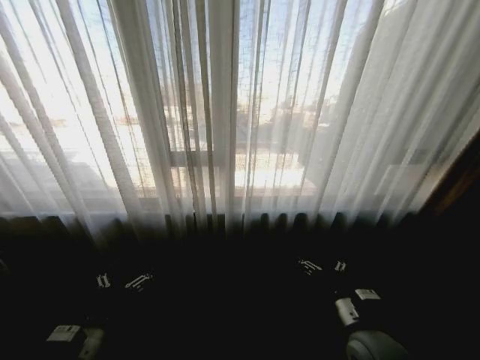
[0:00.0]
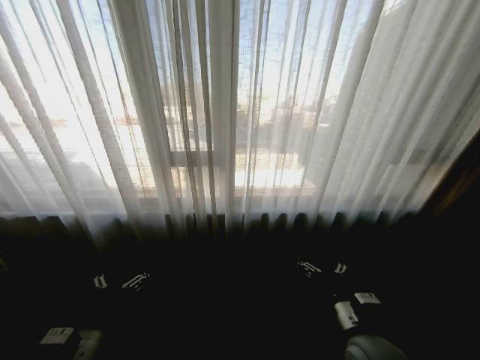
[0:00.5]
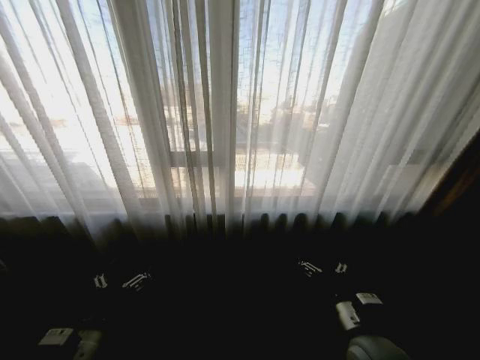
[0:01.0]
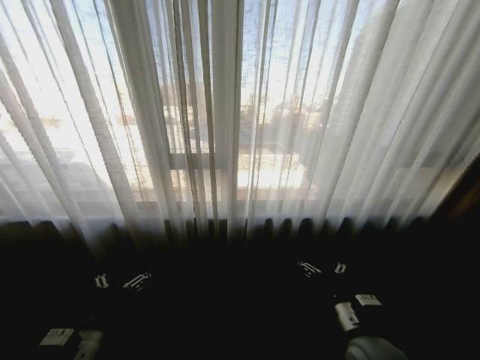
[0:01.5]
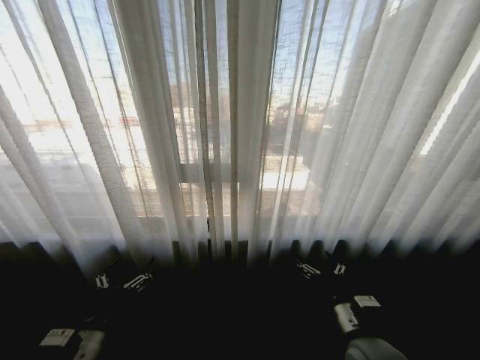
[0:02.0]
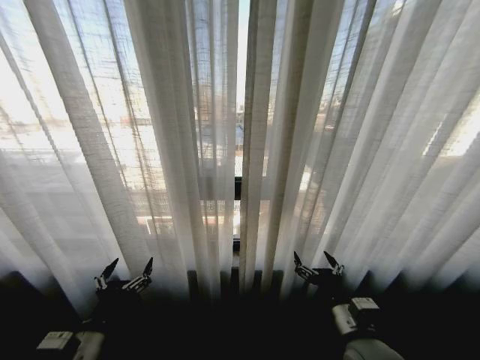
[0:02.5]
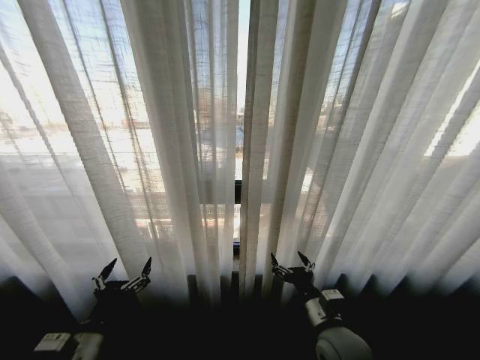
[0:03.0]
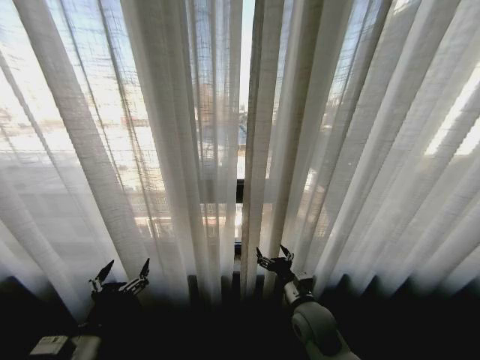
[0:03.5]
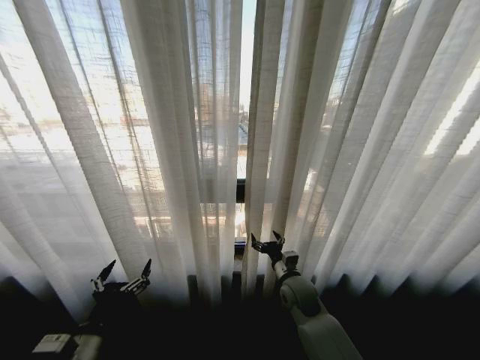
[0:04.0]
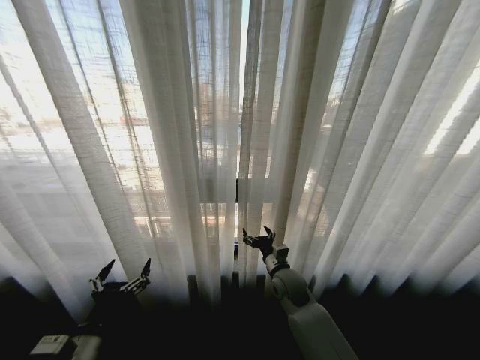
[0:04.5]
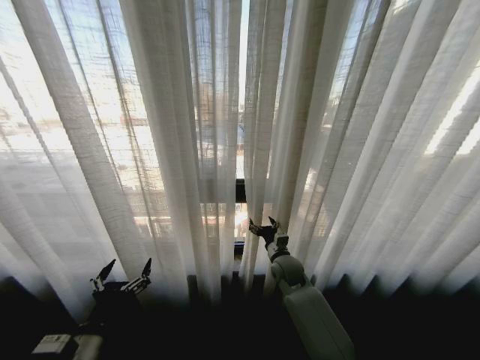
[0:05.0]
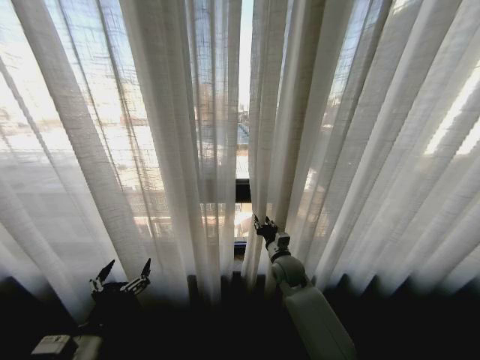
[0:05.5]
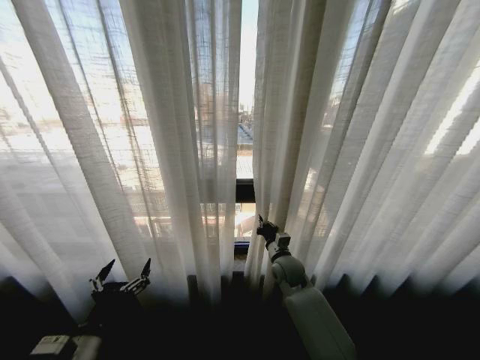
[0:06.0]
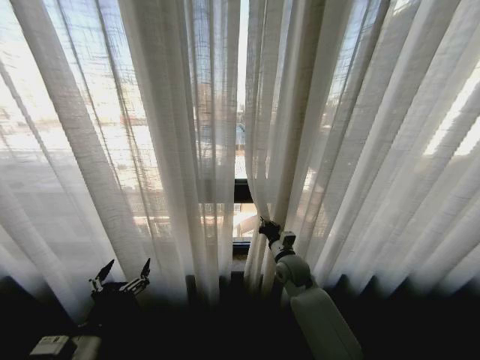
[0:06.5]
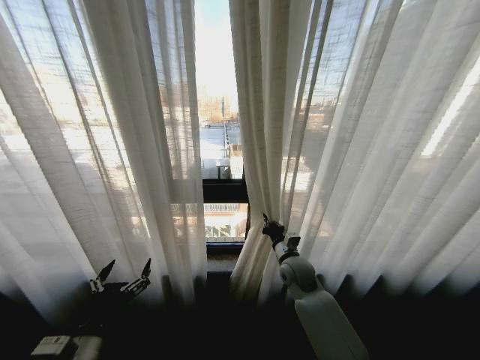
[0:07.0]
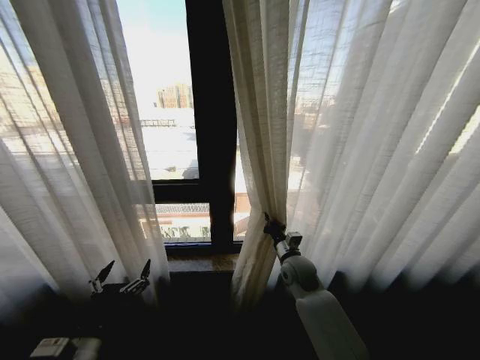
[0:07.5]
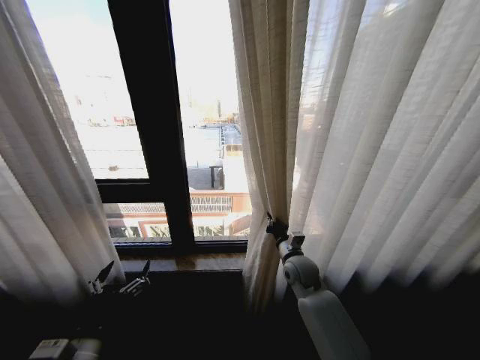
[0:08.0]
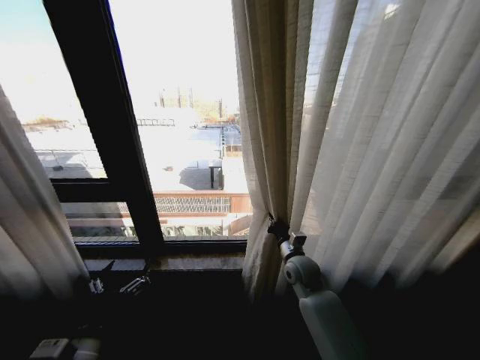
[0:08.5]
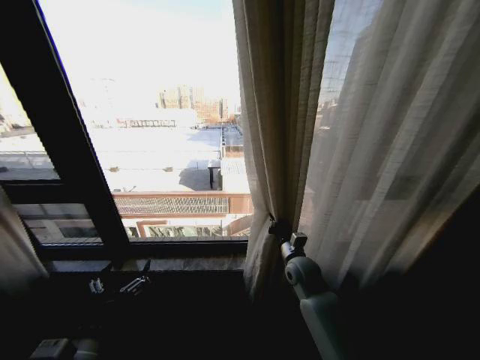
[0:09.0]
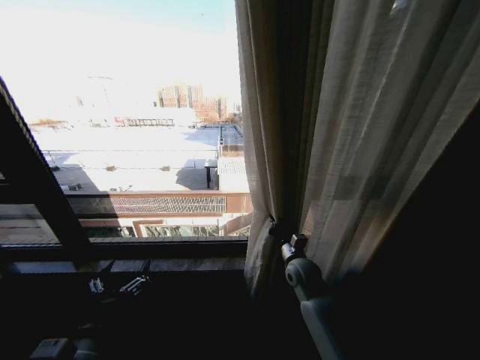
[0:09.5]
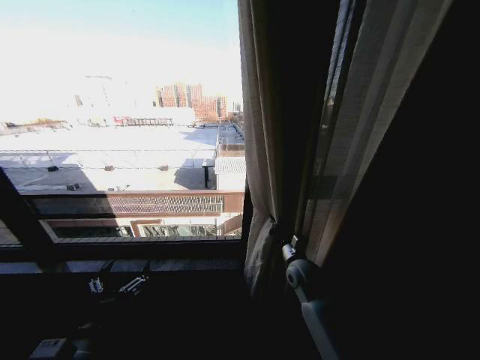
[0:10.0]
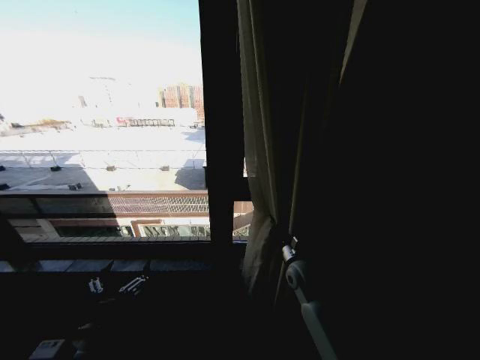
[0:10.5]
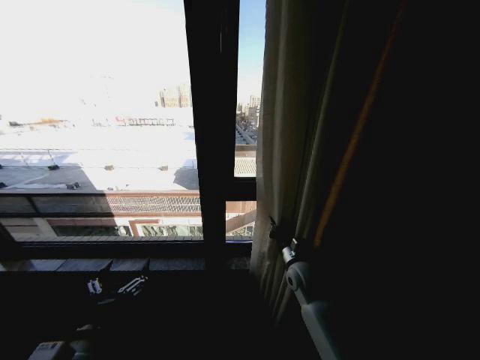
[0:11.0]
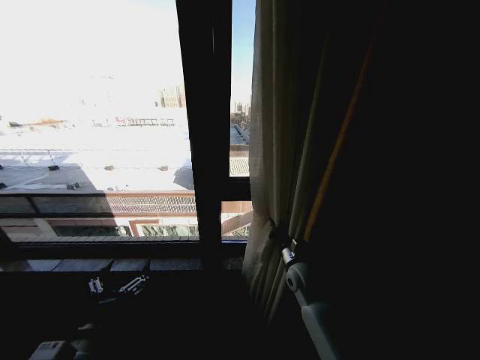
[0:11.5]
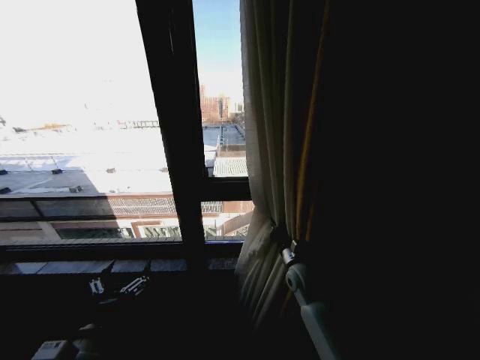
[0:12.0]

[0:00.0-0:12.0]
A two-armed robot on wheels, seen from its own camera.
Task of the whole recording: Open the curtains by pulling them apart, changing their state from closed to fully open.
0:02.0 to 0:04.0: The right gripper goes some 20 cm forward and to the left.
0:04.0 to 0:06.0: The right gripper heads forward, covering some 5 cm, and closes its fingers.

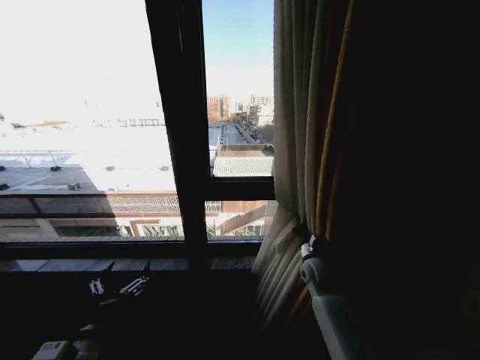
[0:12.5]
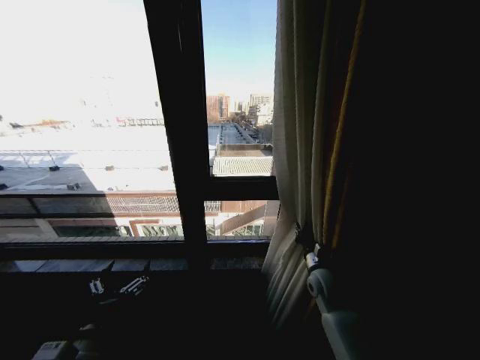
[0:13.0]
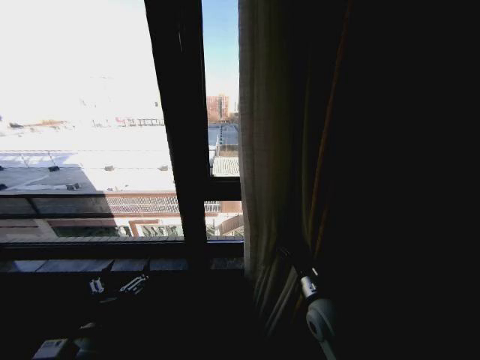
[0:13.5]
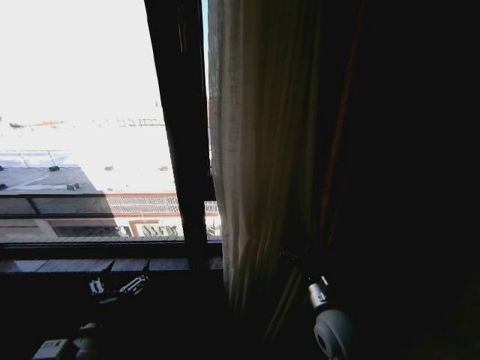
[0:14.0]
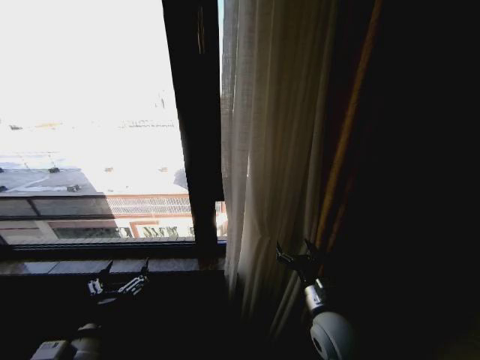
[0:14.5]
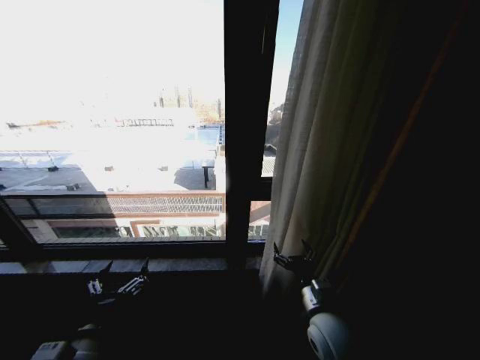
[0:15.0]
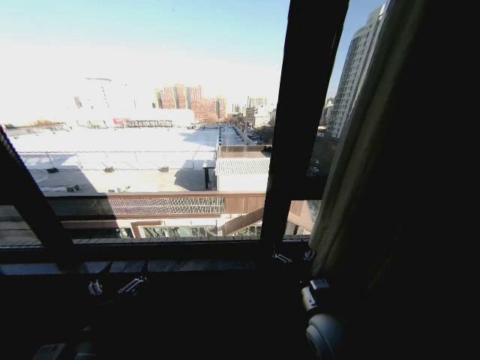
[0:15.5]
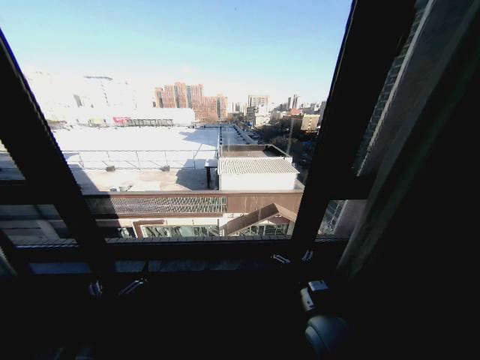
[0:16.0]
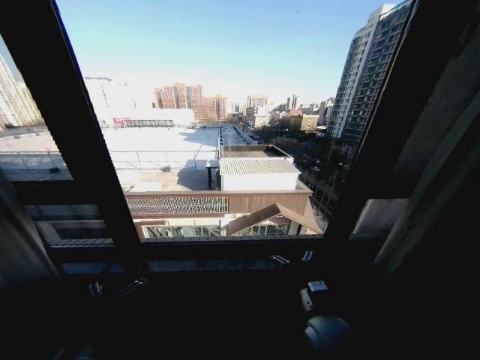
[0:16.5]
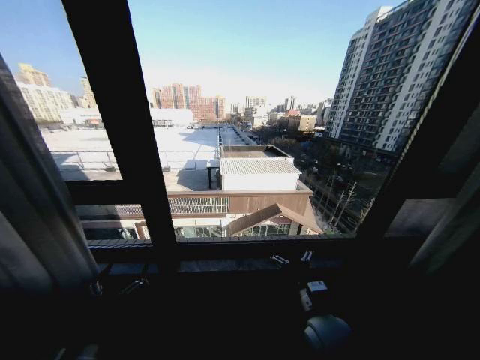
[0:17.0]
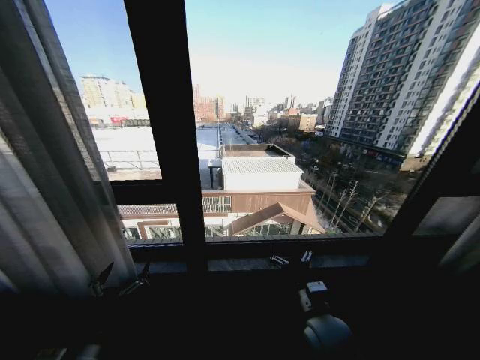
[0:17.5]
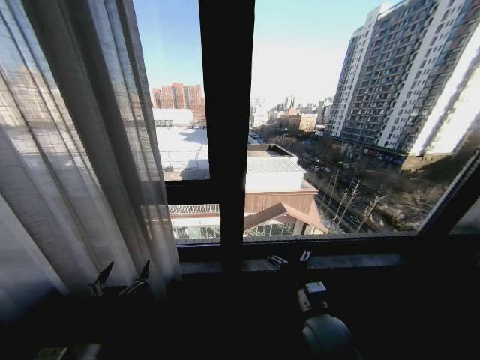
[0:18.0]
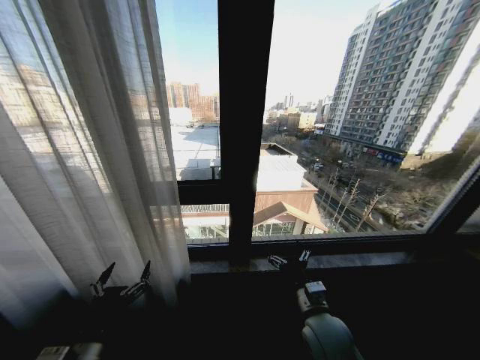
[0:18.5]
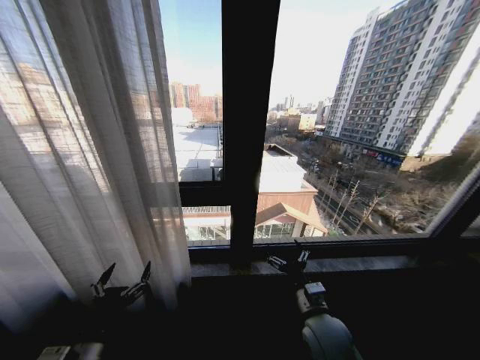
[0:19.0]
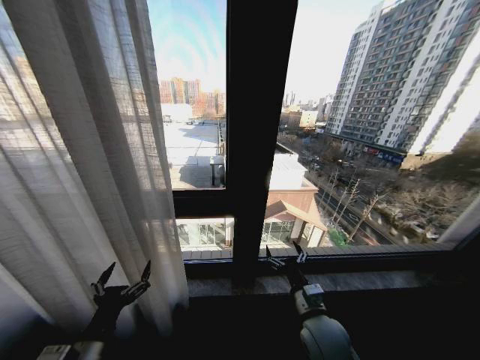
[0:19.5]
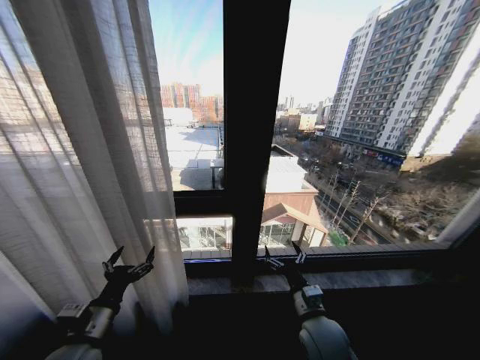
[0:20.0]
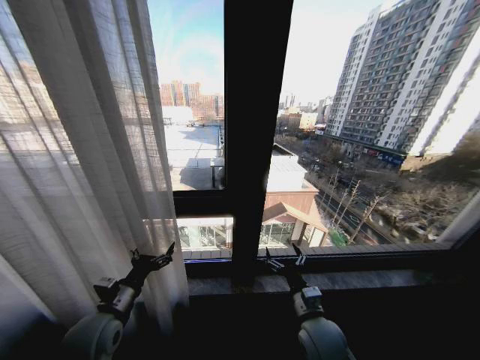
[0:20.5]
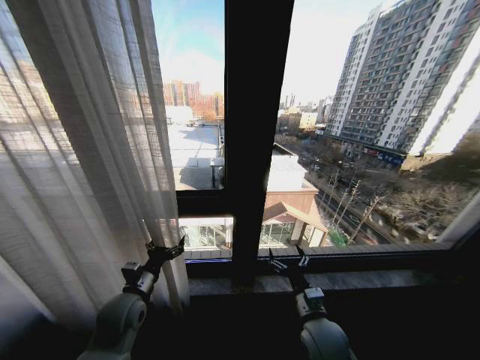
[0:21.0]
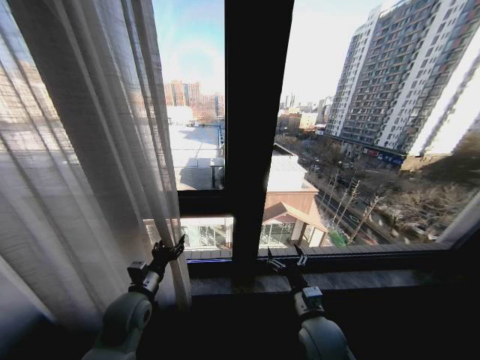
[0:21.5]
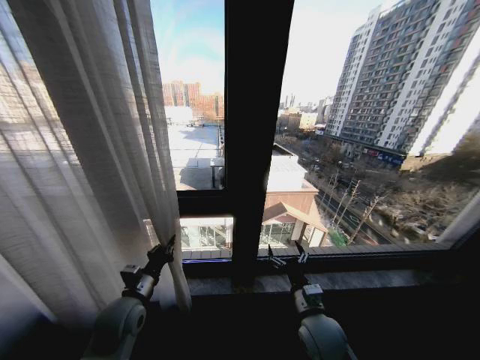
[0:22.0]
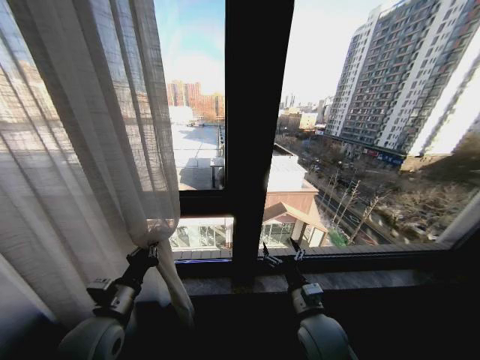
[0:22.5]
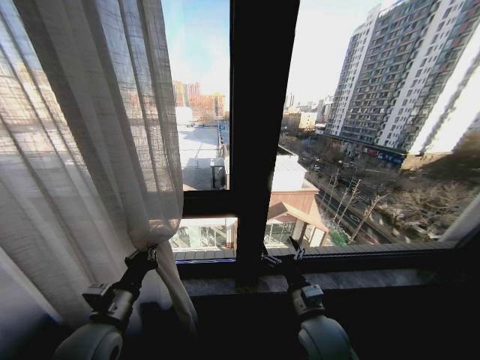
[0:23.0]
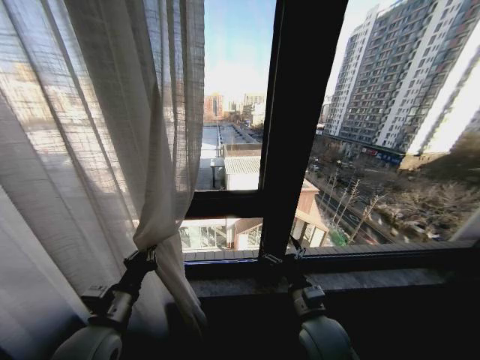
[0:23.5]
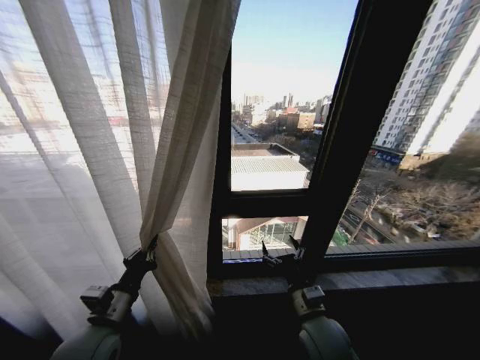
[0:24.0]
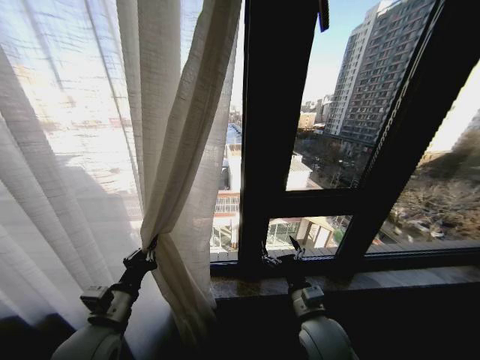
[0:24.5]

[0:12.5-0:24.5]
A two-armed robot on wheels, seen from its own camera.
Task of the whole recording: Open the curtains by pulling them apart, changing their state from closed to fully open.
0:12.5 to 0:14.5: The right gripper heads backward, covering roughly 15 cm, and opens.
0:18.5 to 0:20.5: The left gripper is displaced forward by some 10 cm.
0:20.5 to 0:22.5: The left gripper closes up.

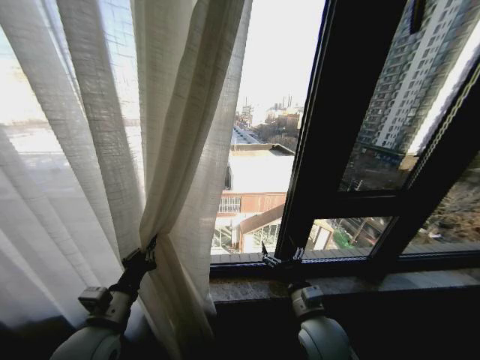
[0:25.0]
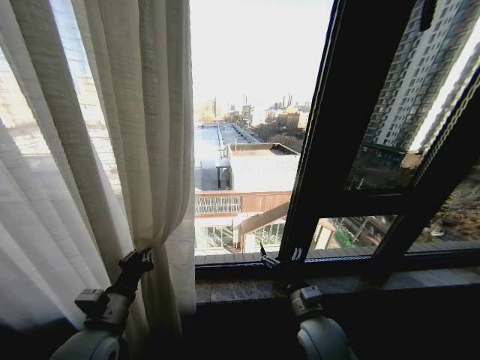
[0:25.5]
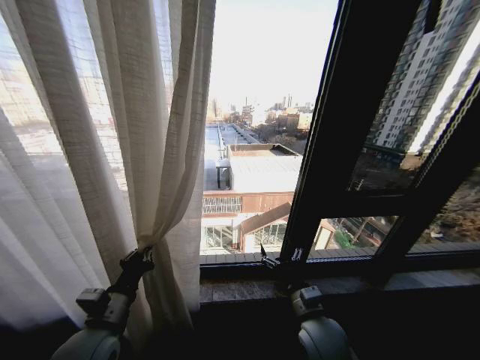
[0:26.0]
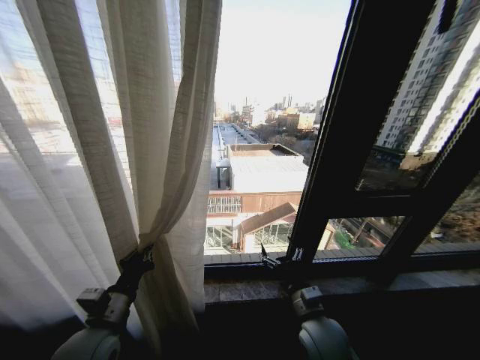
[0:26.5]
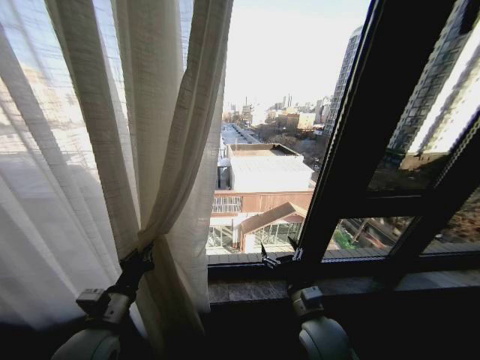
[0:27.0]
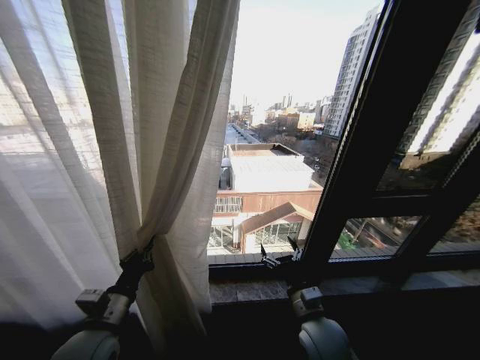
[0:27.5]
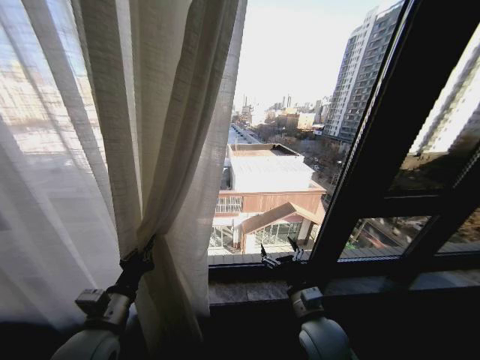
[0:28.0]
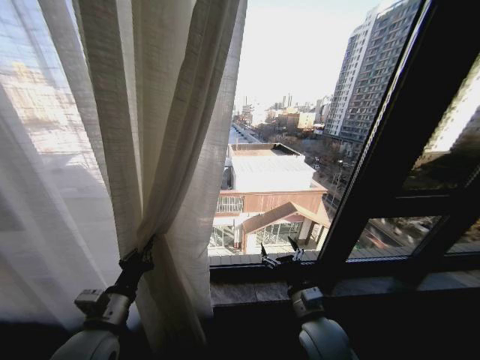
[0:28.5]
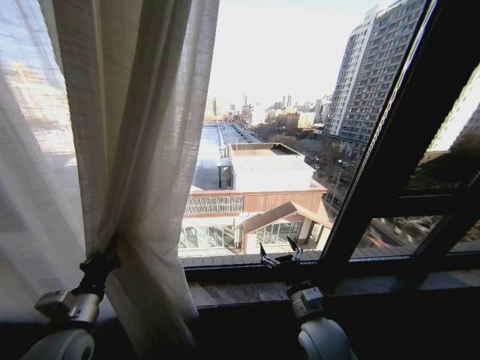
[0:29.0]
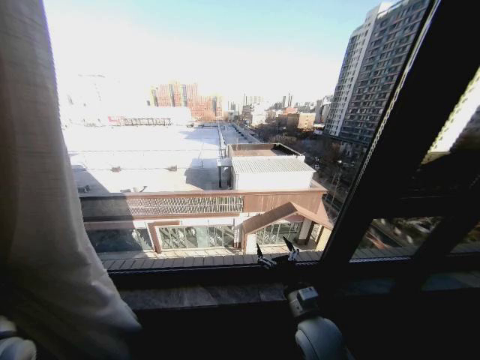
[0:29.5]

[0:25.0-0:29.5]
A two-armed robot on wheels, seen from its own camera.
Task of the whole recording: Open the curtains by pulling them apart, changing their state from closed to fully open.
0:27.0 to 0:29.5: The left gripper travels to the left by about 15 cm.
